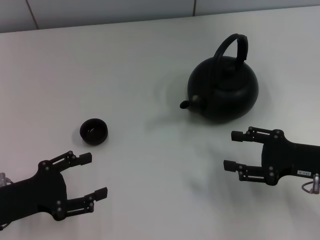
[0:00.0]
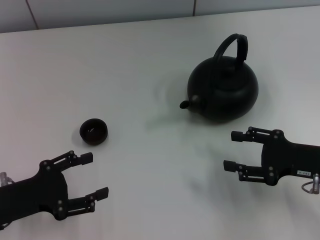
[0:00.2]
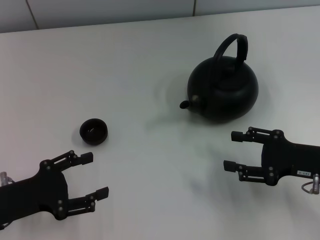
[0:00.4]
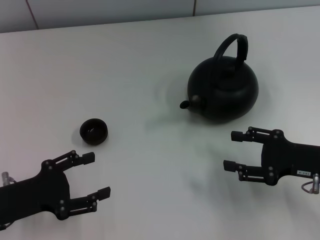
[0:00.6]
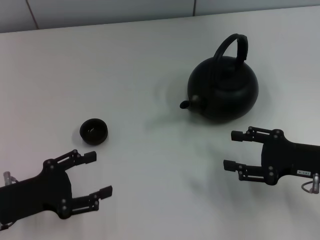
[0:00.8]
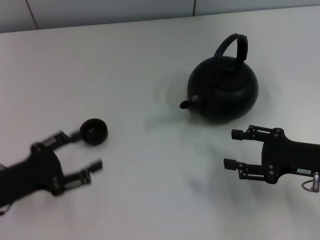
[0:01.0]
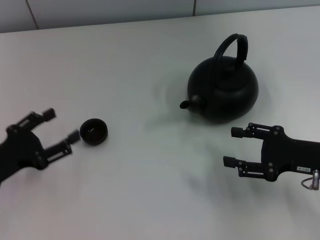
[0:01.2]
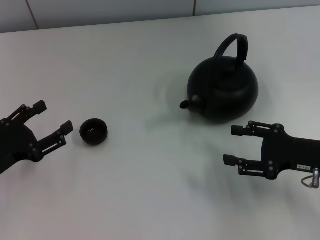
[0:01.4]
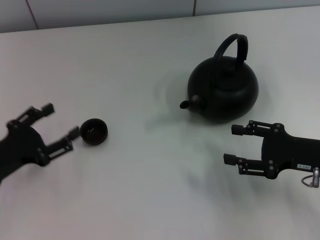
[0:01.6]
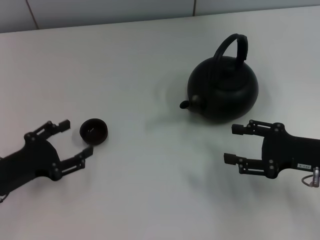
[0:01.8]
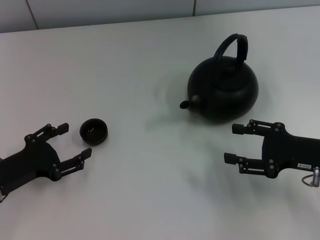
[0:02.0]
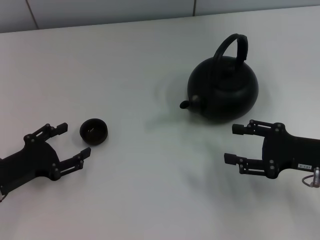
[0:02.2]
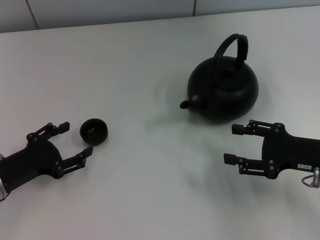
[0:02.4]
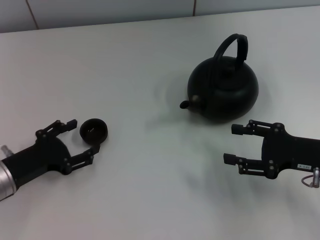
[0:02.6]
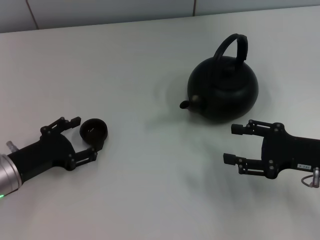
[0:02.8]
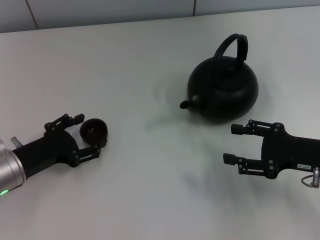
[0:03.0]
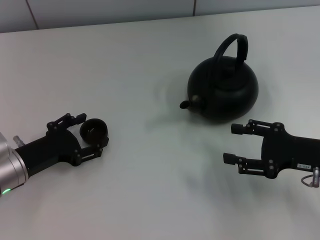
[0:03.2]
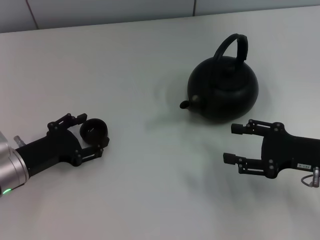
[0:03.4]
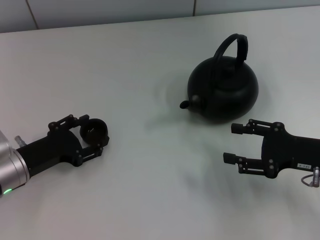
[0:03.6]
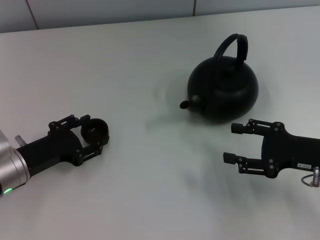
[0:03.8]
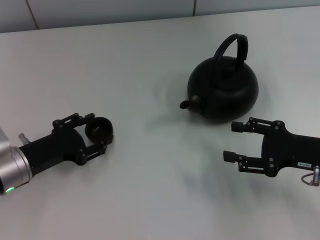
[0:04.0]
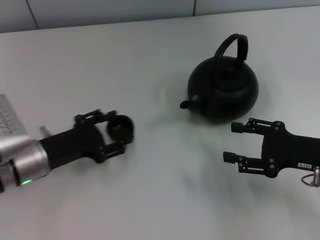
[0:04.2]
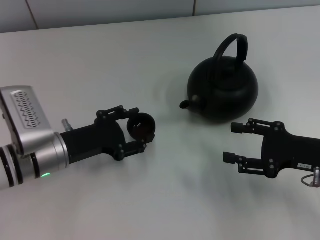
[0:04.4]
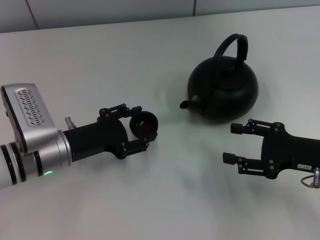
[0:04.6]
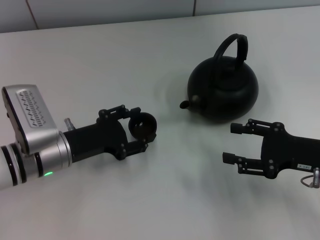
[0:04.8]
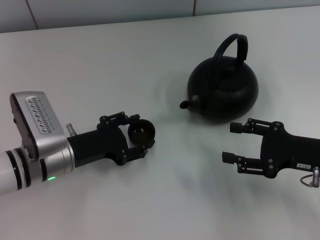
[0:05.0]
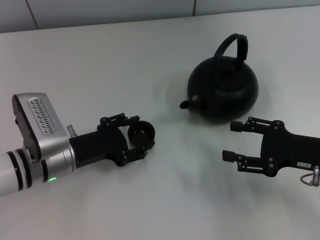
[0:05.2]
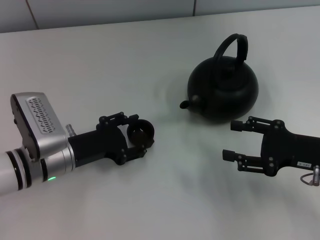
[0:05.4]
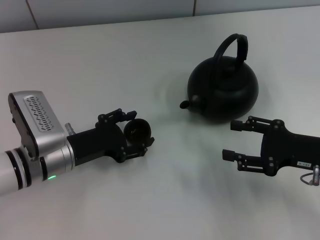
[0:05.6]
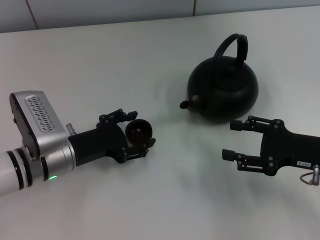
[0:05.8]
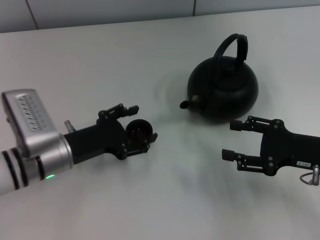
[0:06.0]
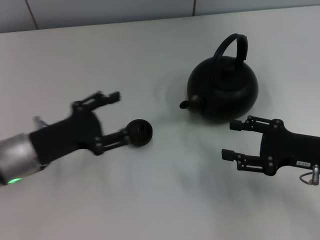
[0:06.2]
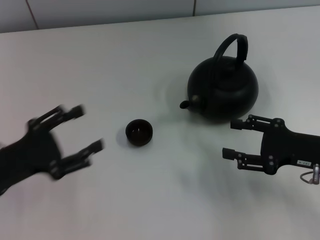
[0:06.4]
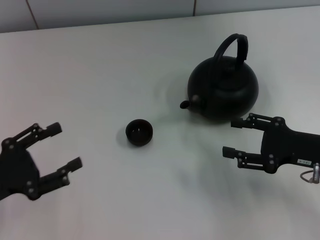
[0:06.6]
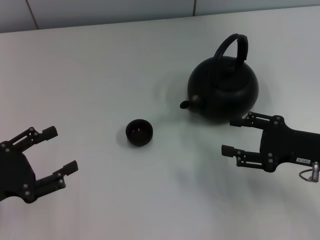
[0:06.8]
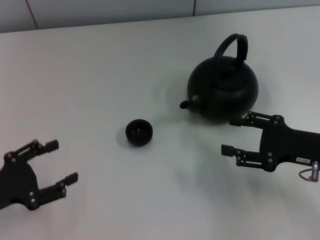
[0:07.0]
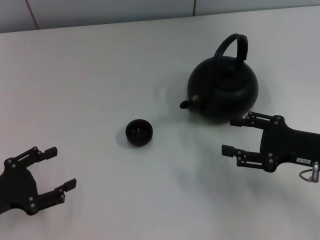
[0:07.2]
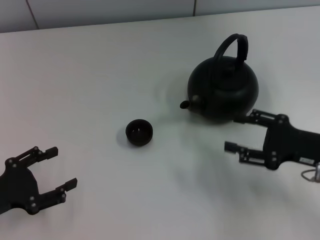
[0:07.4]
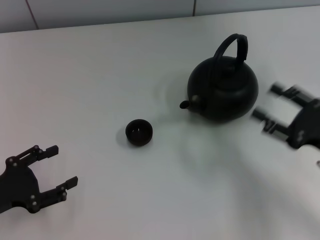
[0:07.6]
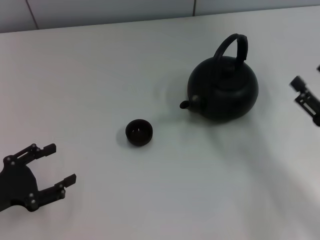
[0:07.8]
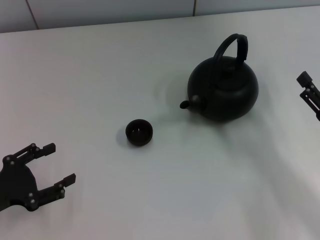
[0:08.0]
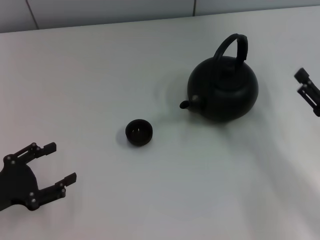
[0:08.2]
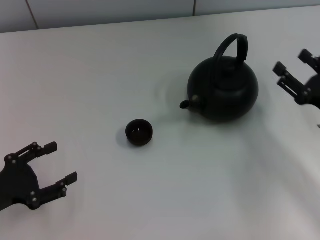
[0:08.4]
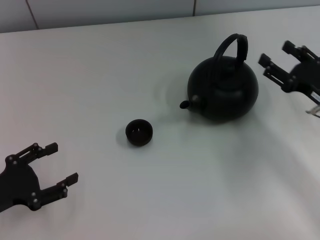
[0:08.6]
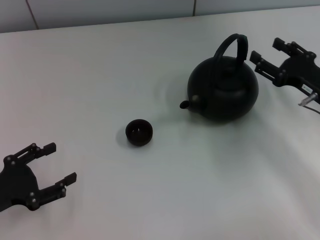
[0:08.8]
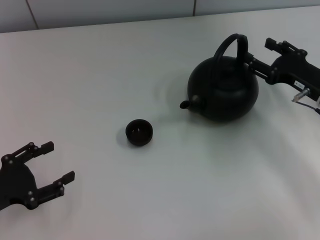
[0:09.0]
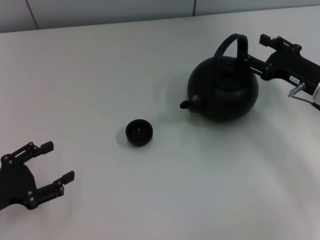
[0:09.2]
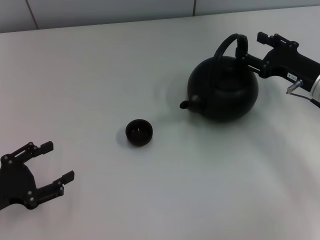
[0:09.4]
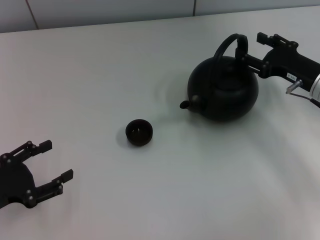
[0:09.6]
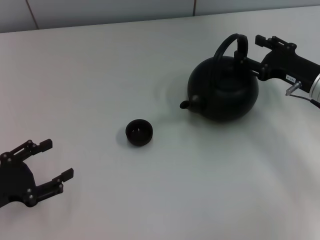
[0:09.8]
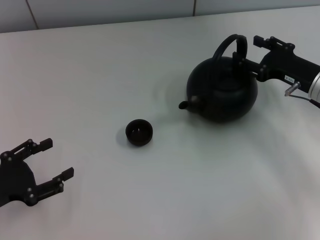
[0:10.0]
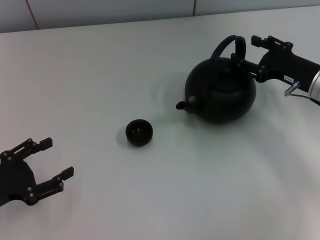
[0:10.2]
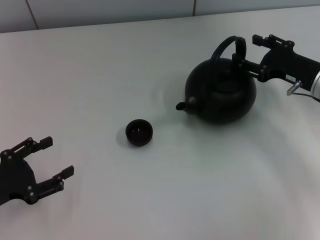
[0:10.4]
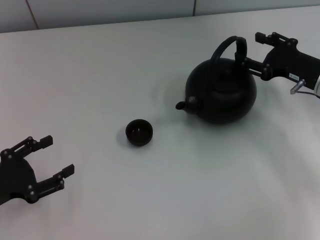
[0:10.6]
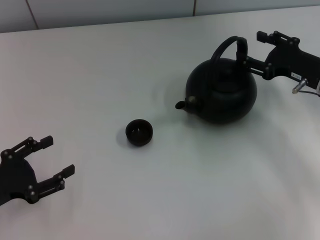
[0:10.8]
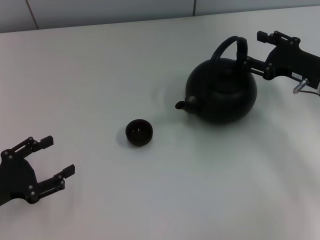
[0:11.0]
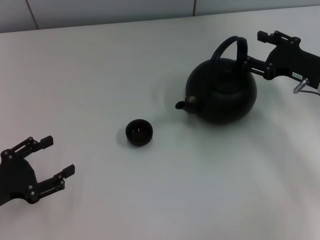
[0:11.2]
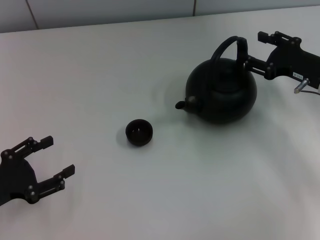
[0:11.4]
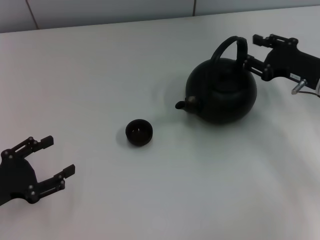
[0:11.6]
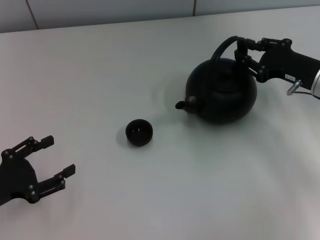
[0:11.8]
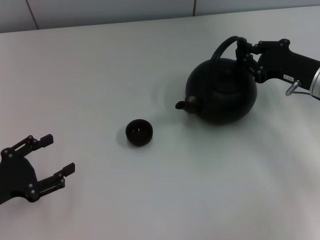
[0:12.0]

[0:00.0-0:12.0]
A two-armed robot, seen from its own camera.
Task of the whole recording: Grasp the handle of the teapot with one hand and pour tea into the teacup.
Step, 0.0 to 4.4 s: Pick up the teacup with the left gripper.
Step, 4.6 to 6.2 s: Place the teacup in the center of view with the left gripper.
1.6 to 3.0 s: The left gripper changes place by about 5 cm.
3.0 to 4.4 s: The left gripper shifts approximately 5 cm to the right, and closes up.
4.4 to 6.0 s: The left gripper opens its fingers.
6.0 to 7.6 s: The left gripper is displaced to the left and backward by some 15 cm.
7.6 to 9.0 s: The right gripper goes approximately 10 cm forward.
9.0 to 10.4 s: There are only small adjustments of the grippers.
10.4 to 12.0 s: The right gripper closes up.

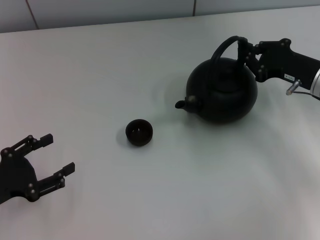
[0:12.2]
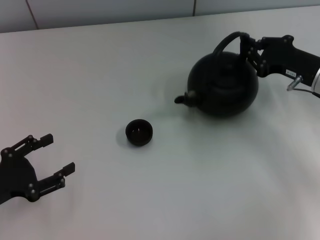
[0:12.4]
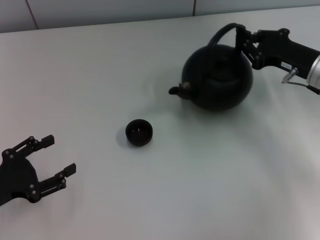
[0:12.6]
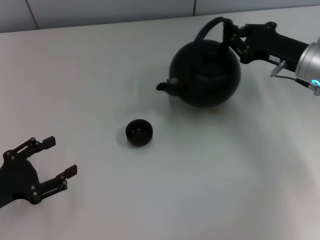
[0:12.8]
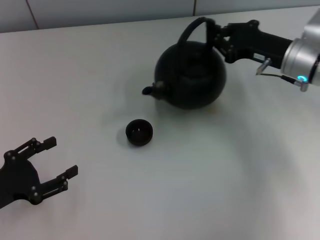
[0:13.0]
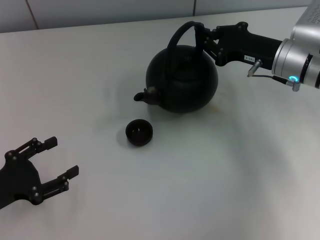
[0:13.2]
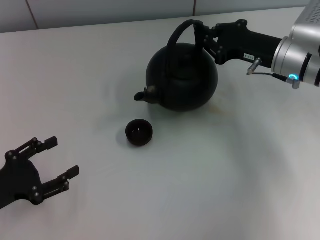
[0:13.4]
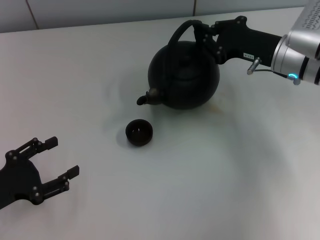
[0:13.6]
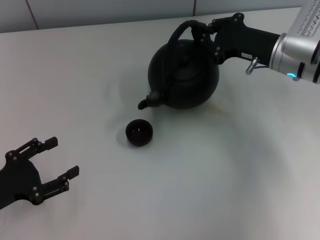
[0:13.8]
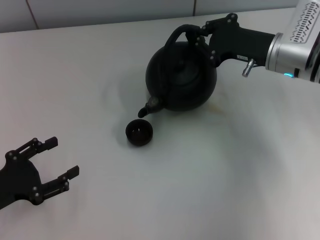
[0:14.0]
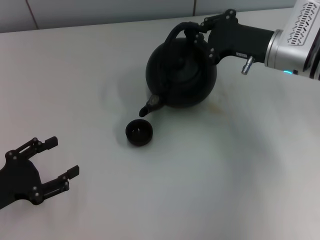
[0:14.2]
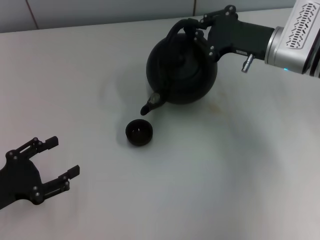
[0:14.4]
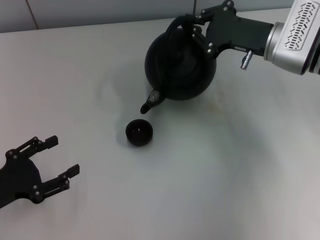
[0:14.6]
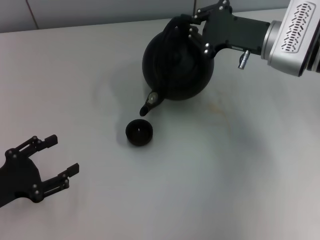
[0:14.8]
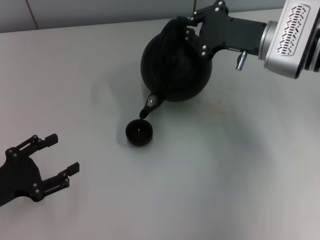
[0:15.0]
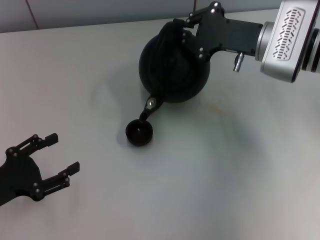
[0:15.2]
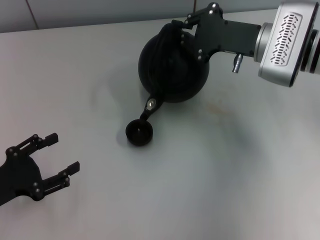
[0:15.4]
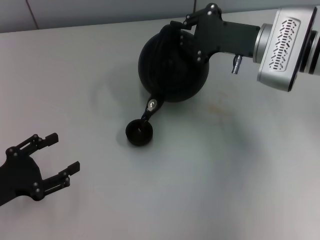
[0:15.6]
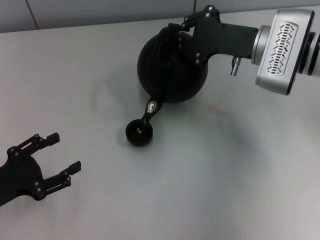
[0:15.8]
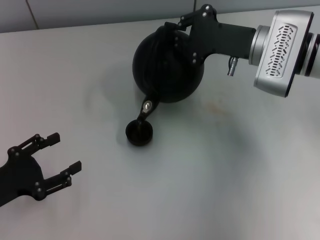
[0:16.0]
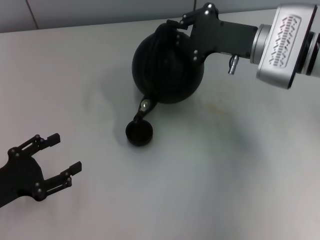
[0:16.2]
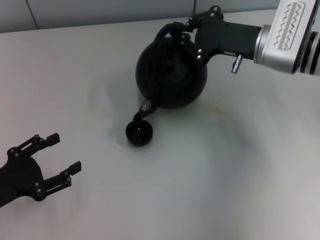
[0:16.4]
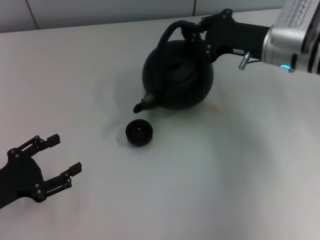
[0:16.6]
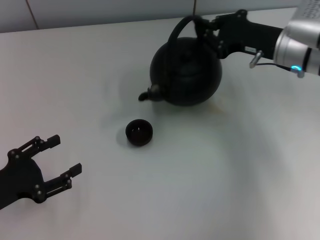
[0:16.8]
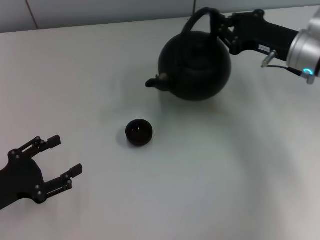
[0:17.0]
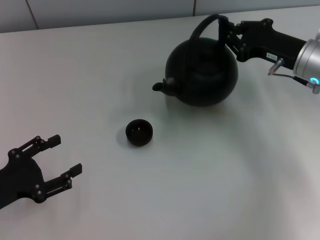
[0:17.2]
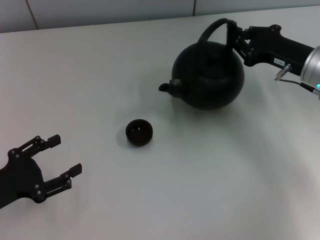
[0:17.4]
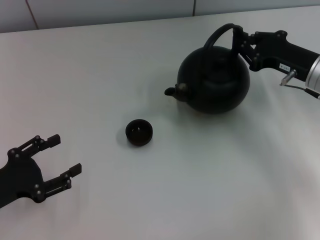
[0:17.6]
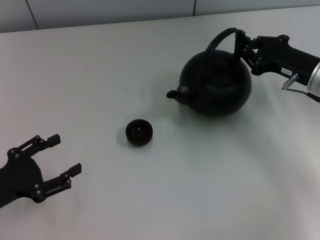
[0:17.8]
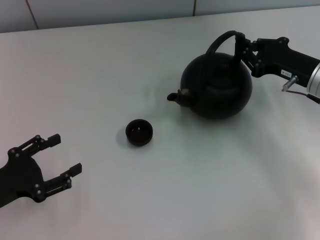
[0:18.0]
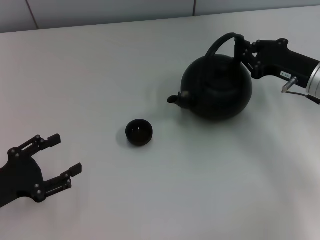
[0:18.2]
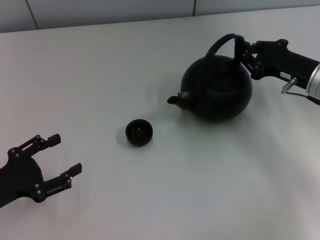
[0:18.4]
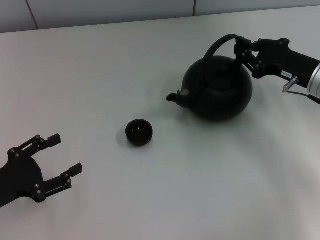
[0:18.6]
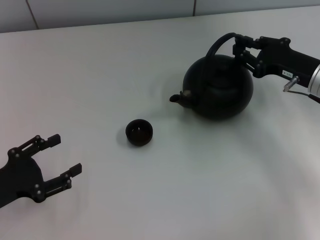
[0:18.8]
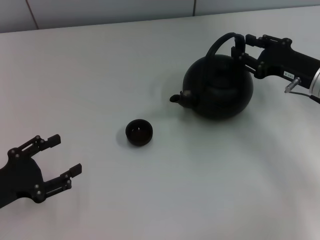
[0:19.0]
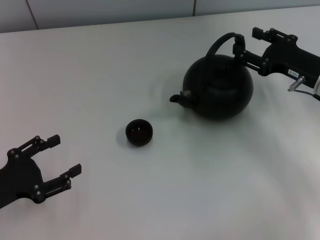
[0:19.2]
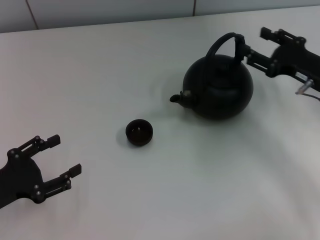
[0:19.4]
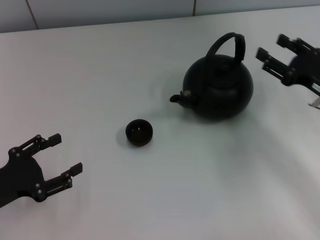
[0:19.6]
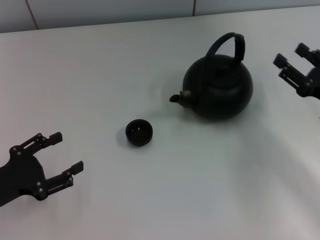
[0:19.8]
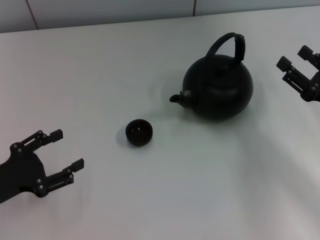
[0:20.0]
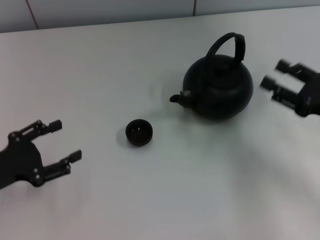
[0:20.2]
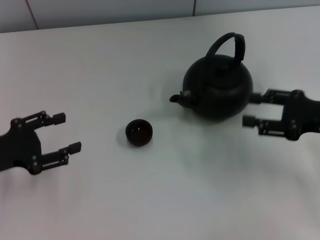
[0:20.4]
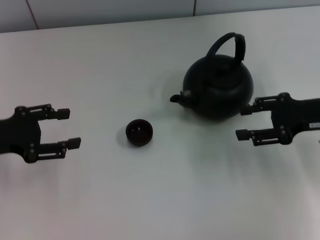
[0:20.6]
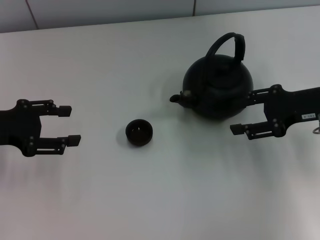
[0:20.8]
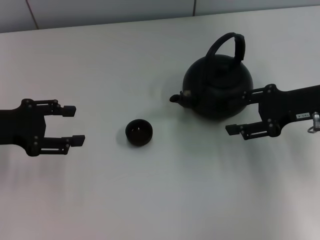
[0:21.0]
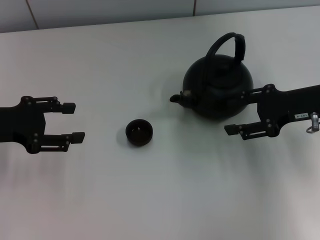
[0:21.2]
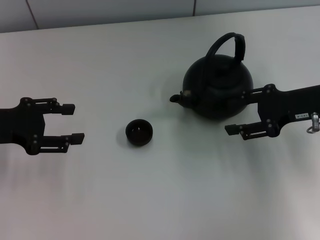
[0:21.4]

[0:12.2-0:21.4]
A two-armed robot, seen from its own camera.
Task of the whole recording: Grasp the handle of the teapot with one hand and pour tea into the teacup.
Step, 17.0 to 19.6 s: Put down the teapot with the right gripper.
12.2 to 13.8 s: The right gripper travels to the left by roughly 5 cm.
16.8 to 18.4 s: The right gripper shifts by approximately 5 cm.
18.4 to 19.8 s: The right gripper shifts about 10 cm backward, and opens.
19.8 to 21.4 s: The grippers both shift forward and upward by about 10 cm.

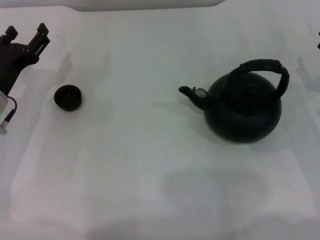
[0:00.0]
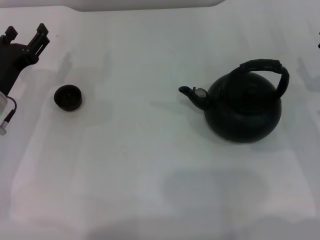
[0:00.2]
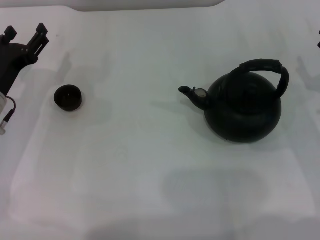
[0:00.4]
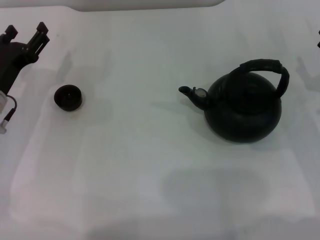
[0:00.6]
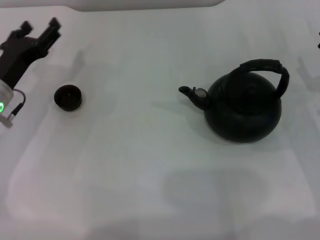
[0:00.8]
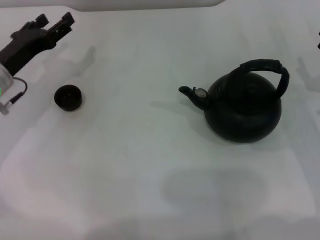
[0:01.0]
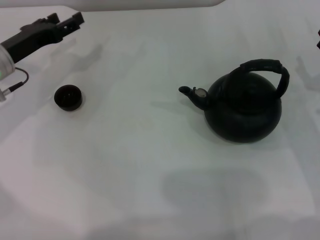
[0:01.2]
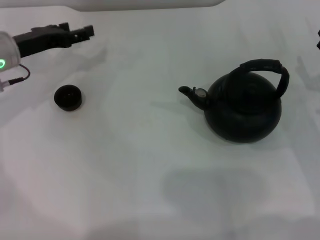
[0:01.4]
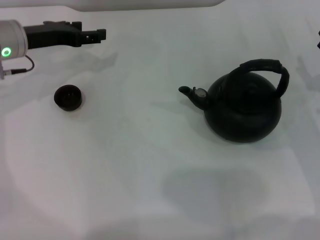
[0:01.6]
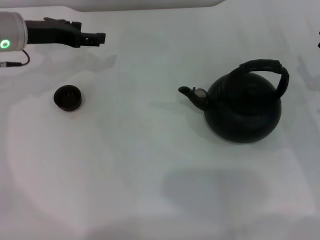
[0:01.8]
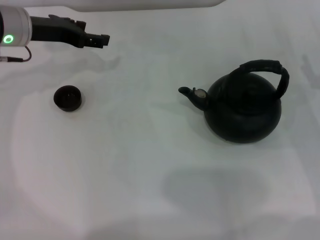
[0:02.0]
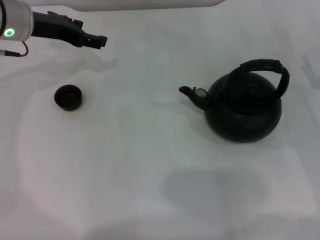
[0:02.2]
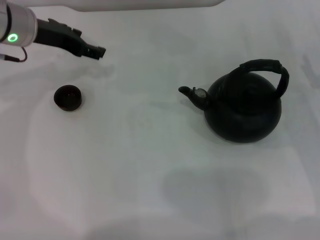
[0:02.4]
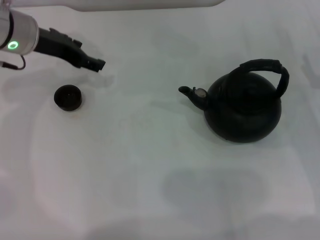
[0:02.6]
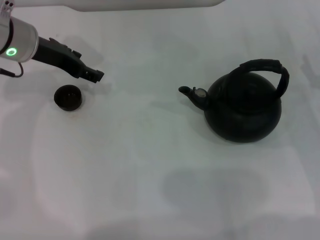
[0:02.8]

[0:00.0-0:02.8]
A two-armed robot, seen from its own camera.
Task of the whole recording: Grasp the handle of the teapot with one hand and pour tea into the teacup.
0.0 to 1.4 s: The left gripper heads forward and upward, covering some 10 cm.
1.4 to 2.8 s: The left gripper heads upward and to the right, covering about 10 cm.
